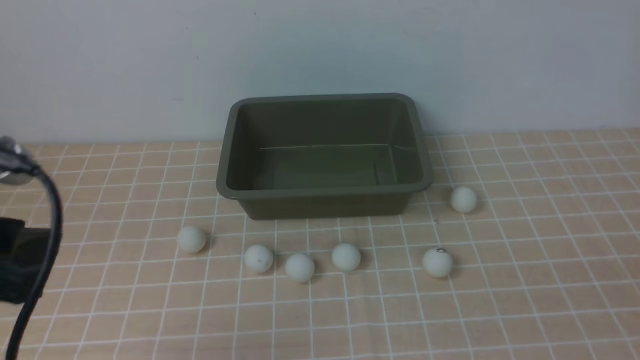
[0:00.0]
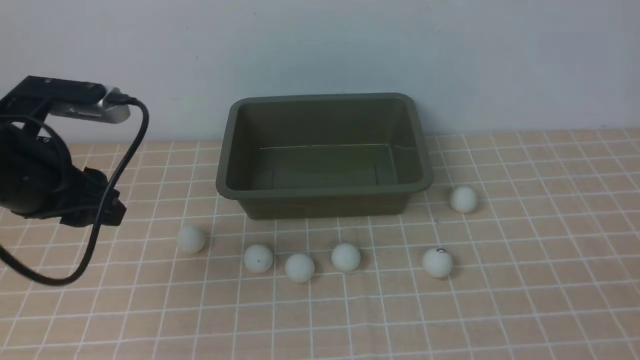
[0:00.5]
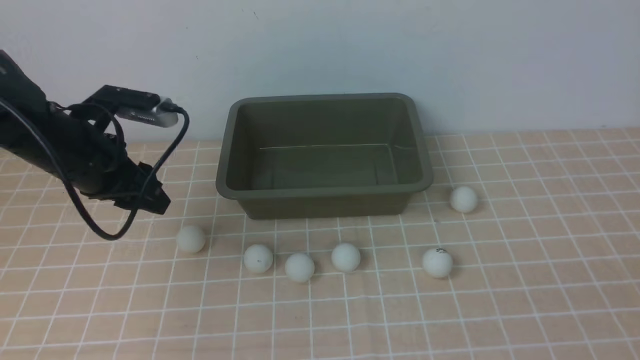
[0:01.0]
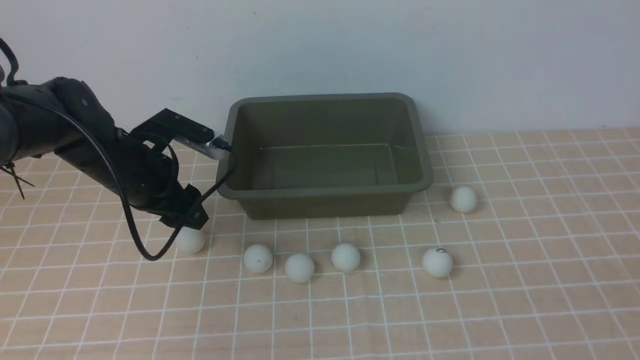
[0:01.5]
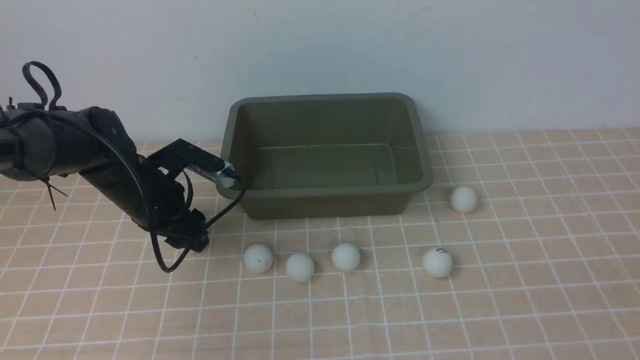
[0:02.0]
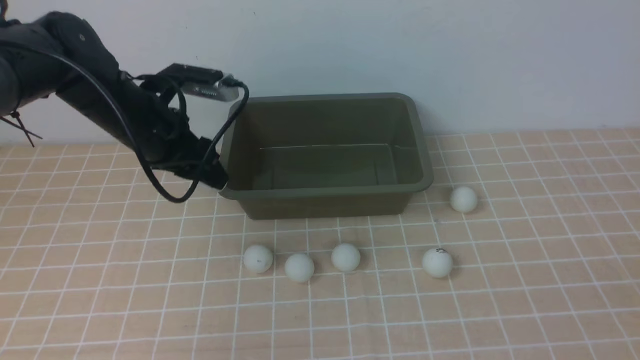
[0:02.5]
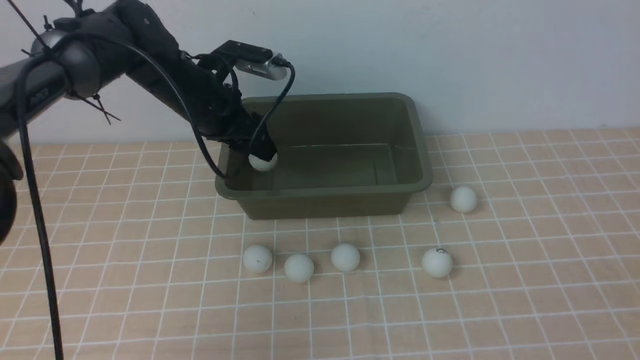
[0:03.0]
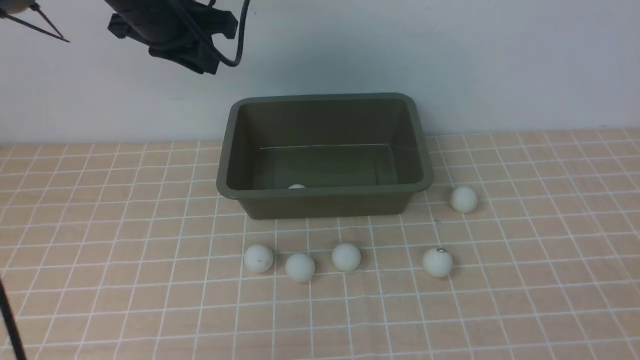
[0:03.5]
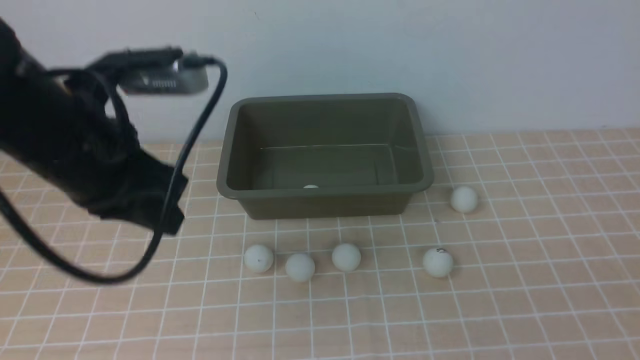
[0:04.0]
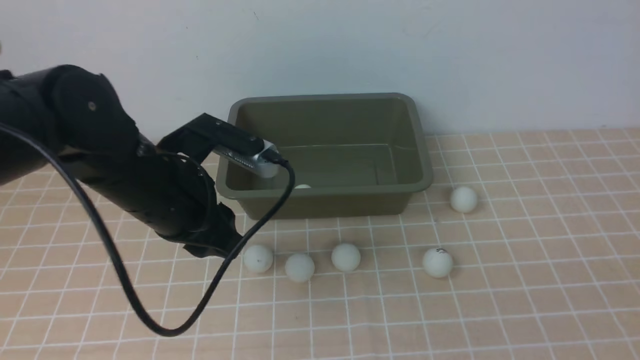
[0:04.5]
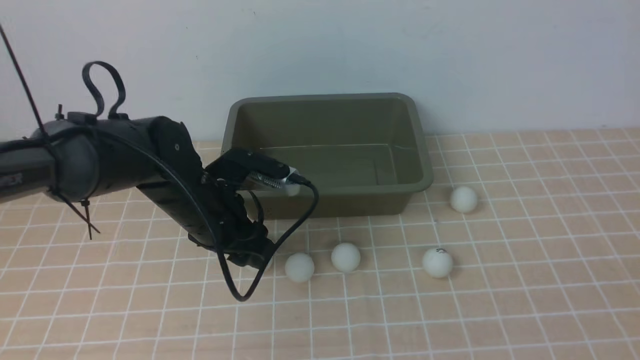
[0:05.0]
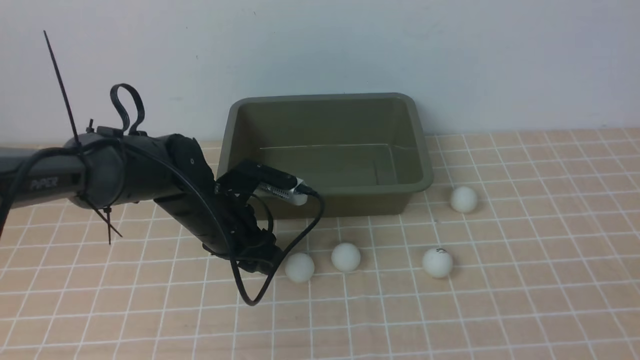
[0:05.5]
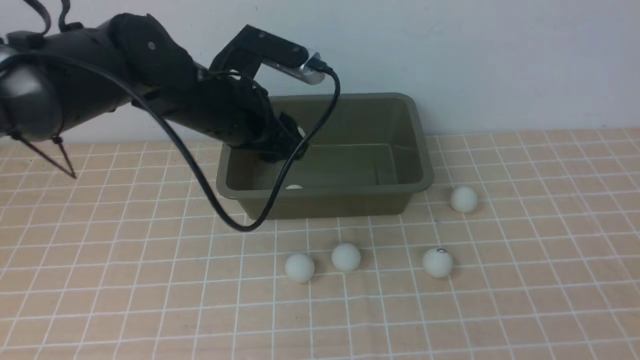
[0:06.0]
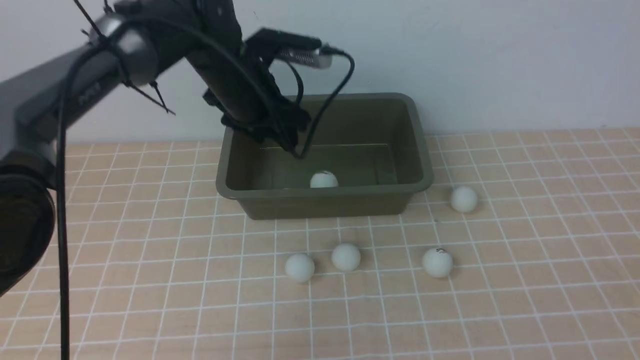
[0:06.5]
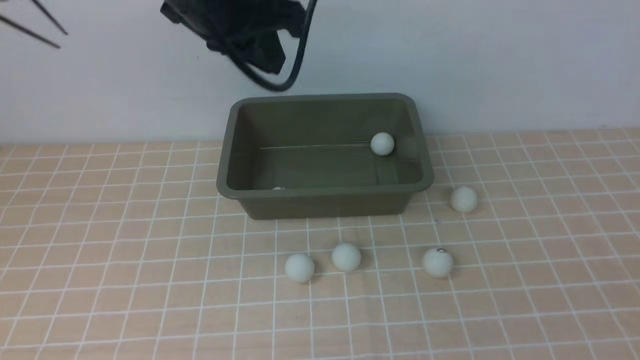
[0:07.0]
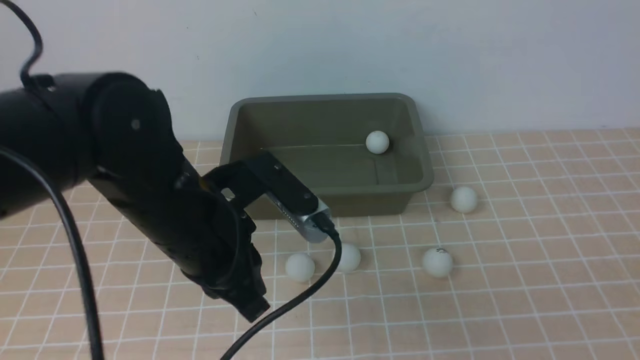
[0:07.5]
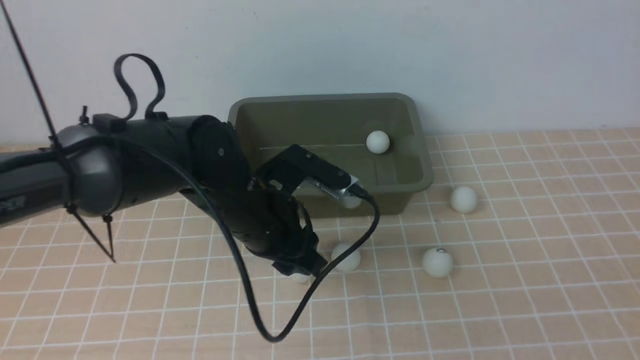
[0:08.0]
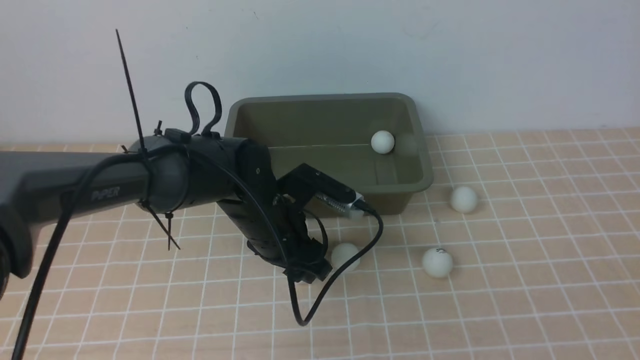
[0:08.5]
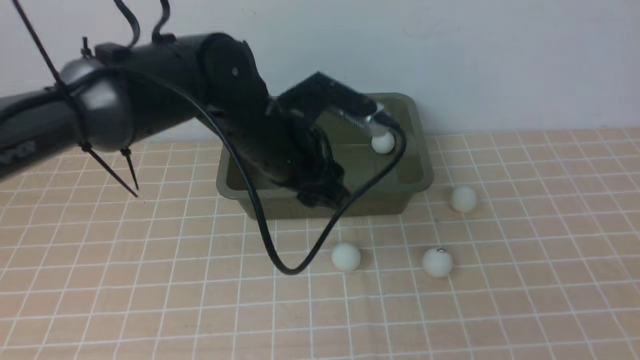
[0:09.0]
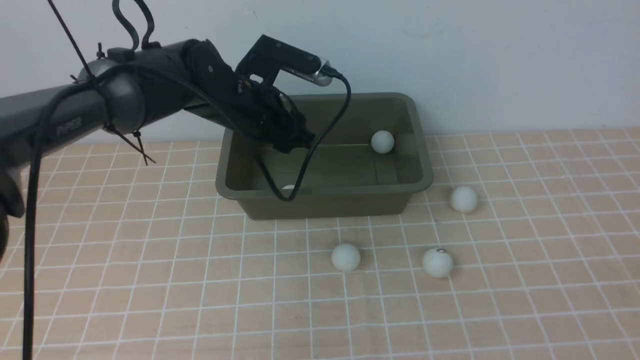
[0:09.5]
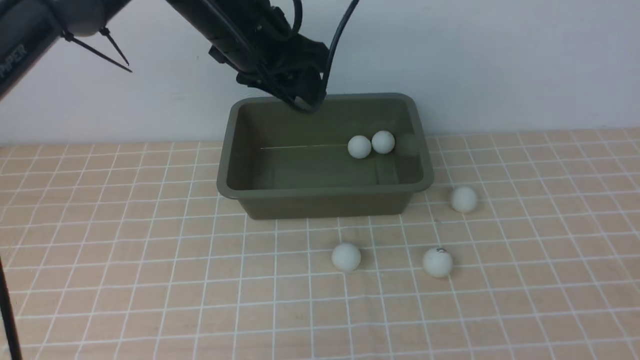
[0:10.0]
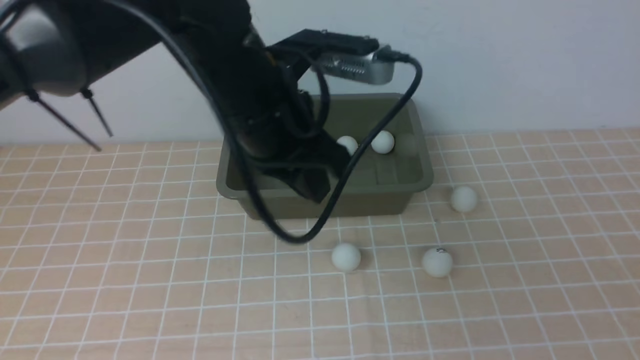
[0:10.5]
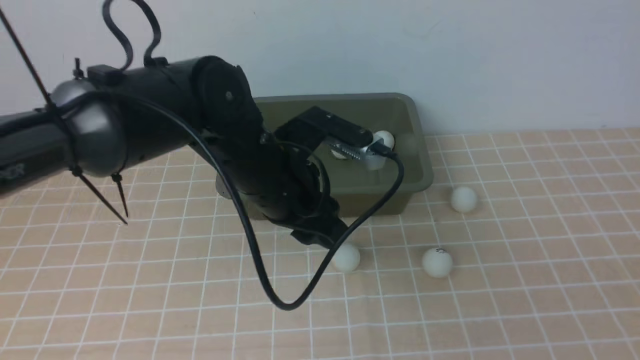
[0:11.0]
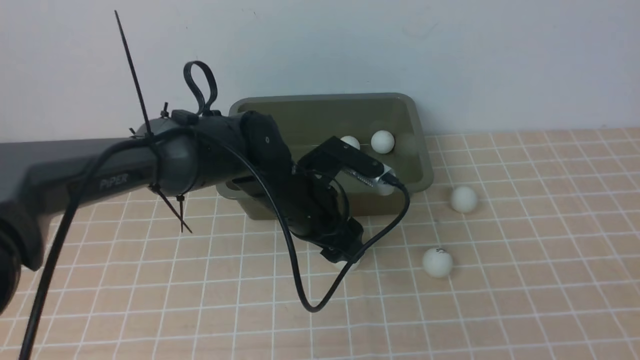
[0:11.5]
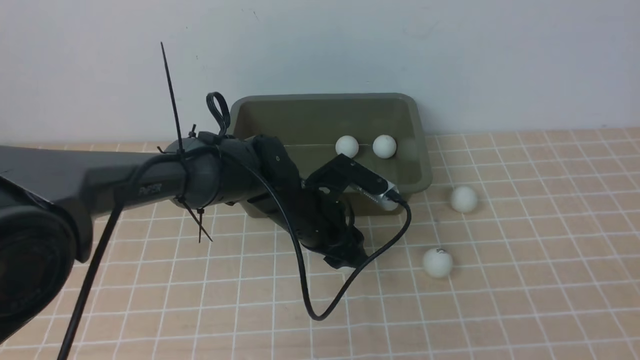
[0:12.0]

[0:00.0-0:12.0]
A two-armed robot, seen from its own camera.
Step, 0:00.0 to 0:02.0: use the left arm to clamp the table tennis ball closest to it.
Step, 0:03.5 to 0:05.5: use the left arm to clamp the table tennis ball closest to it.
Step, 0:06.0 to 0:06.5: use the left arm to put the table tennis ball into the box.
Step, 0:07.0 to 0:09.0: use the left arm to clamp the table tennis ball closest to it.
0:00.0 to 0:02.0: The left gripper moves forward and downward, about 30 cm.
0:02.0 to 0:04.0: The left gripper is displaced upward and backward by roughly 20 cm, and closes.
0:04.0 to 0:06.0: The left gripper shifts roughly 15 cm forward, to the right and downward, and opens its fingers.
0:06.0 to 0:08.0: The left gripper swings forward and backward, about 20 cm each way, with 2 reversals, and closes, then reopens.
0:08.0 to 0:10.0: The left gripper moves upward and forward, about 15 cm.
0:10.0 to 0:12.0: The left gripper moves downward, some 20 cm, and closes, then opens again.

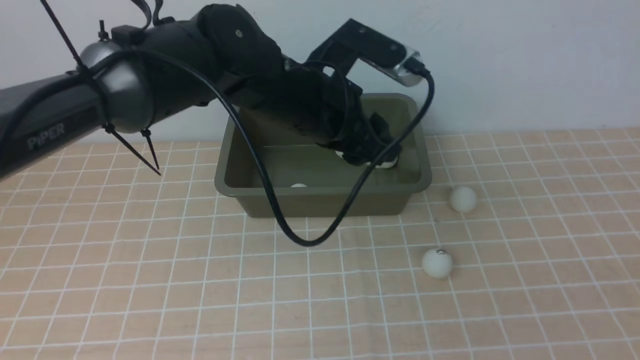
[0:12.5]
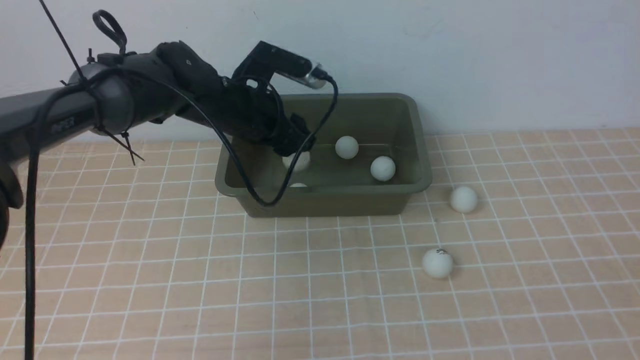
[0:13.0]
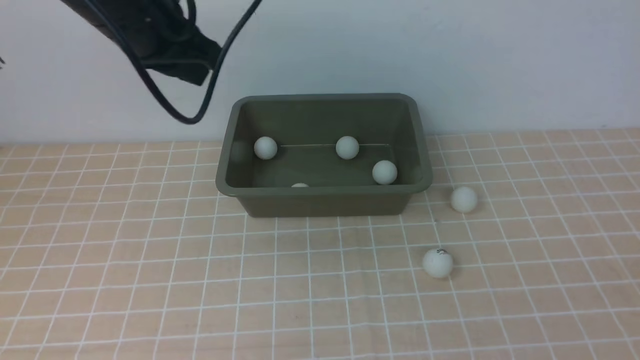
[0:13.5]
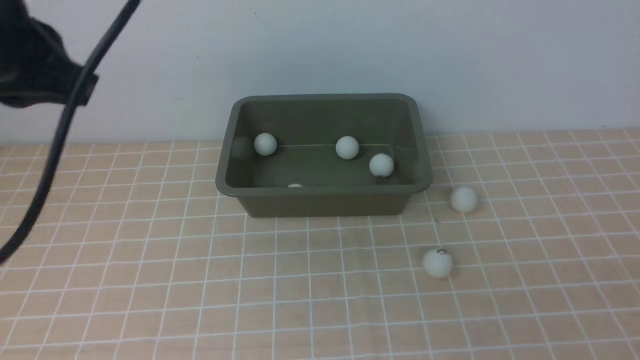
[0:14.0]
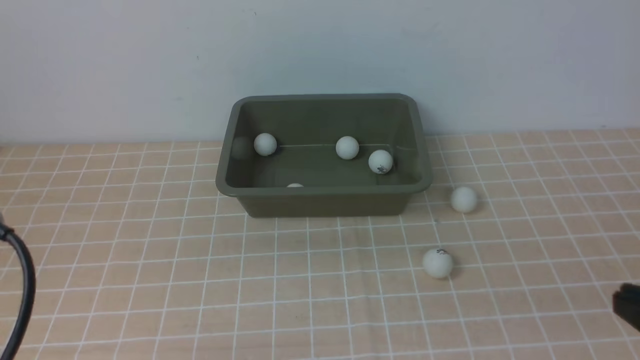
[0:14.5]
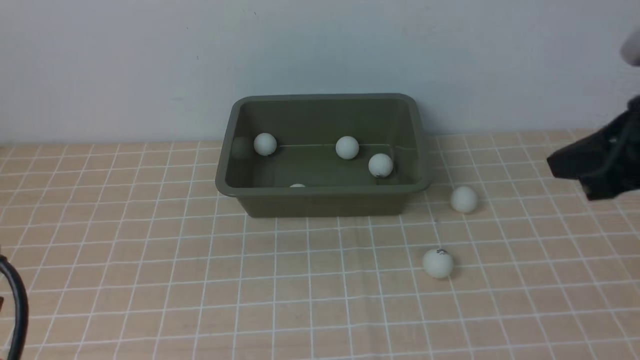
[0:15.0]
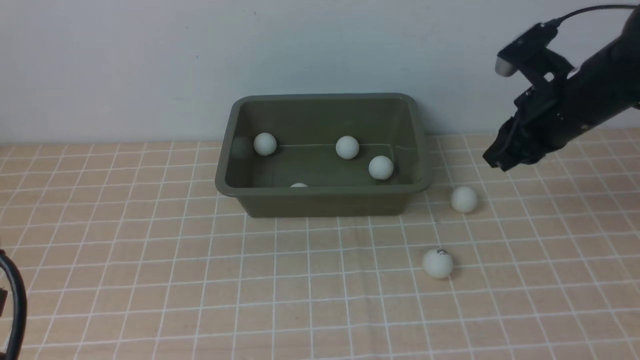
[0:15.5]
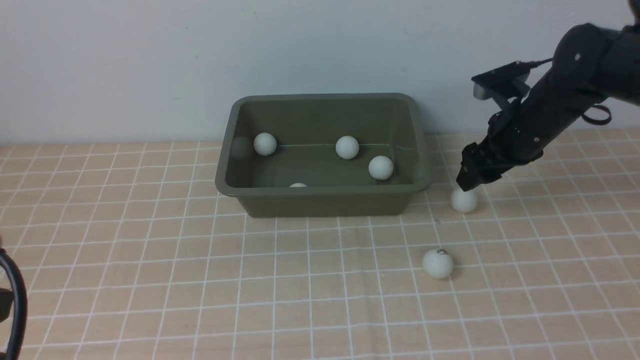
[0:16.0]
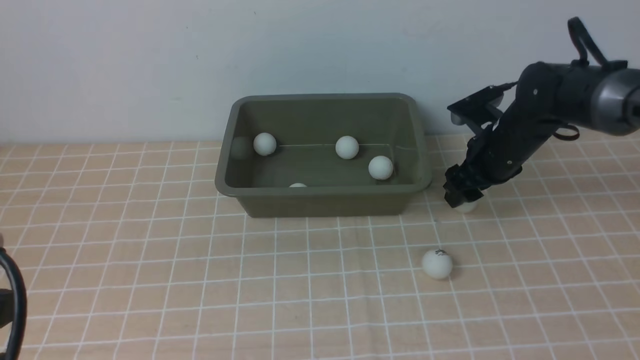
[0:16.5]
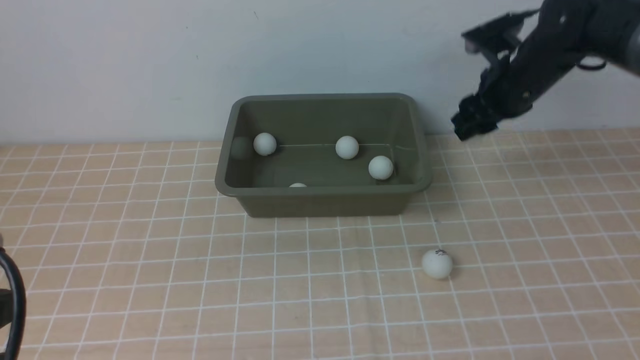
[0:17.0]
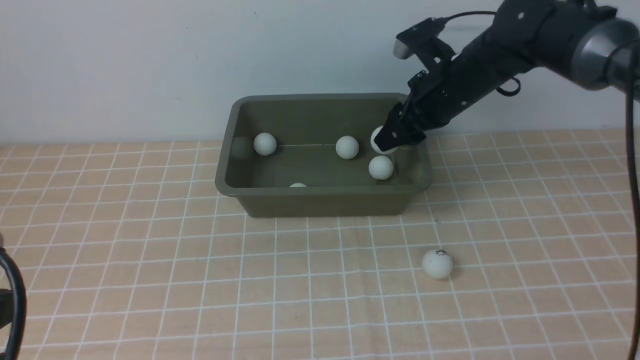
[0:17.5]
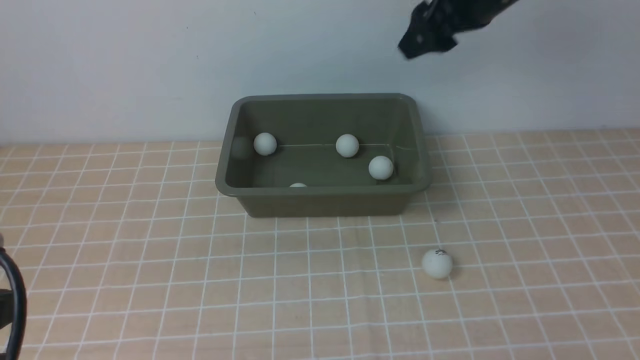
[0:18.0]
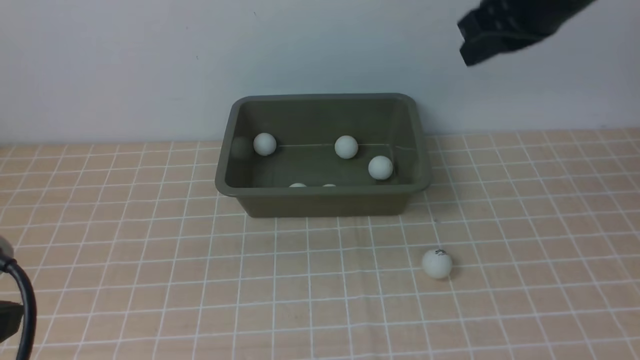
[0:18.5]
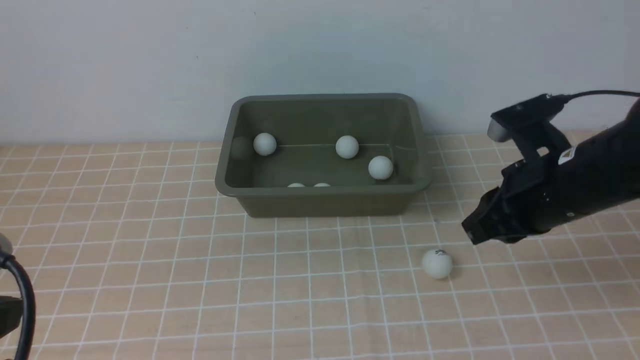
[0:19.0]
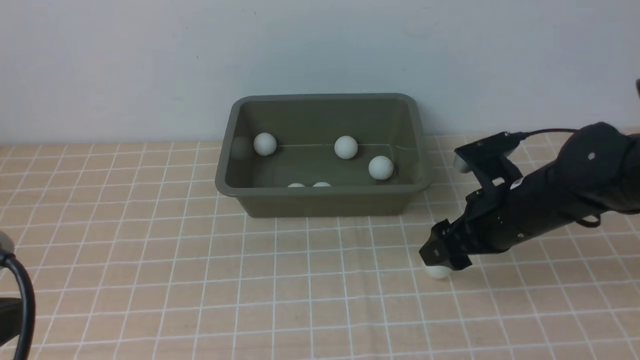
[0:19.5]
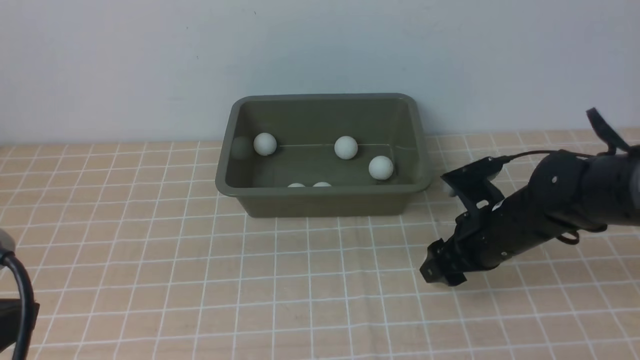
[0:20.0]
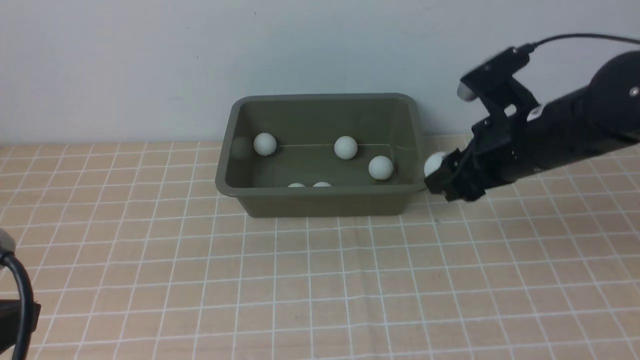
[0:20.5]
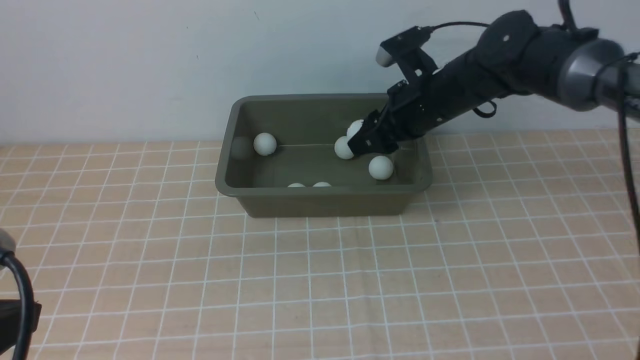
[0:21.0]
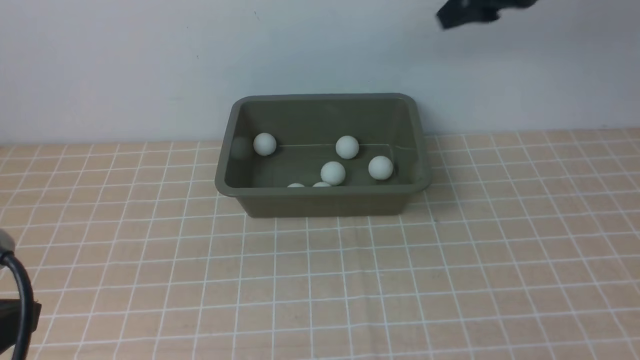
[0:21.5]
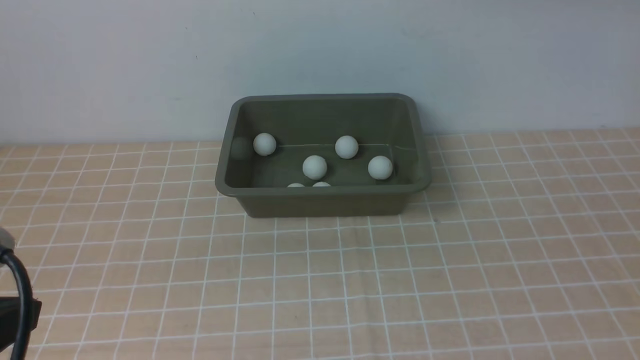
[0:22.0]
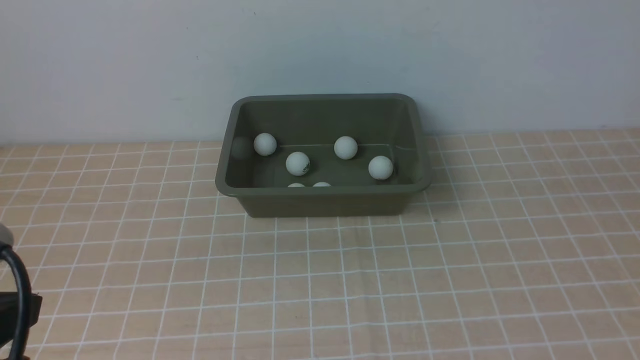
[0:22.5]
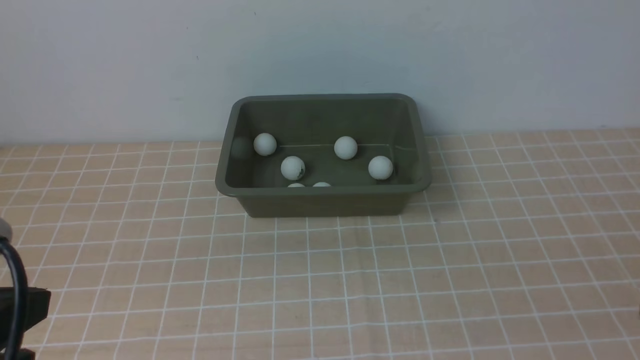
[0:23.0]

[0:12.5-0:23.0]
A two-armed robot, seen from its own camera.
Step, 0:13.5 to 0:17.0: use the right arm to clamp the table tennis ball closest to it.
Step, 0:18.0 to 0:20.0: use the right arm to clamp the table tennis ball closest to it.
0:12.5 to 0:14.5: The left gripper heads backward and to the left, covering about 35 cm, and closes up. The right gripper travels forward by approximately 5 cm.
0:14.5 to 0:16.5: The right gripper heads forward, covering approximately 35 cm, and opens.
0:16.5 to 0:19.0: The right gripper travels backward and upward by about 20 cm, and closes.
0:19.0 to 0:21.0: The right gripper goes some 15 cm forward and to the left, and opens.
0:21.0 to 0:23.0: The right gripper travels backward by about 40 cm, and closes its fingers.
